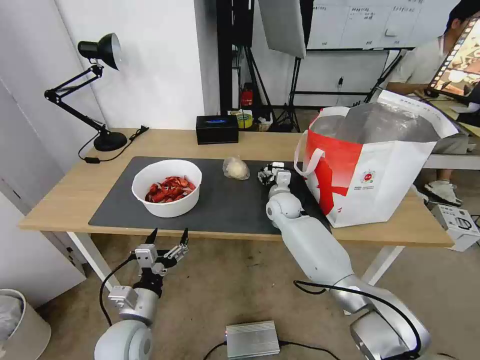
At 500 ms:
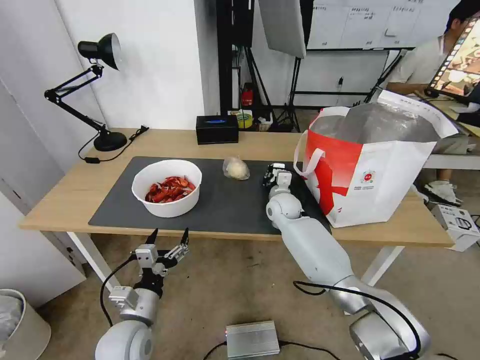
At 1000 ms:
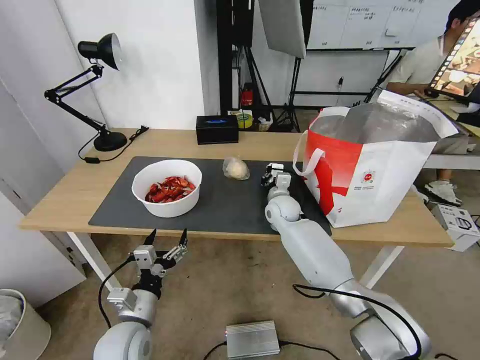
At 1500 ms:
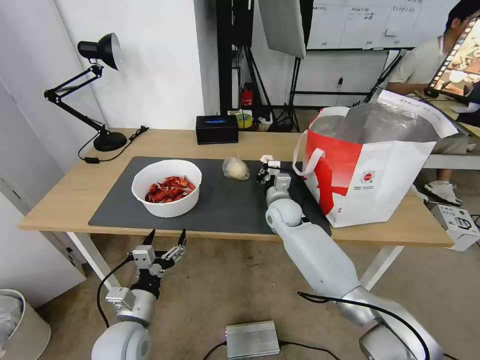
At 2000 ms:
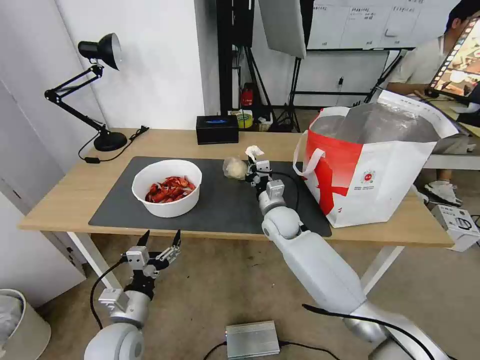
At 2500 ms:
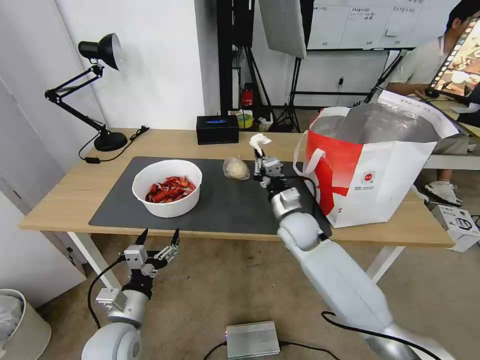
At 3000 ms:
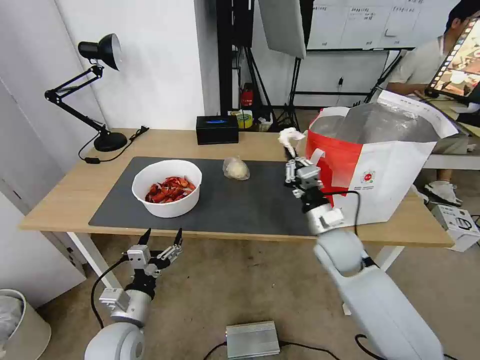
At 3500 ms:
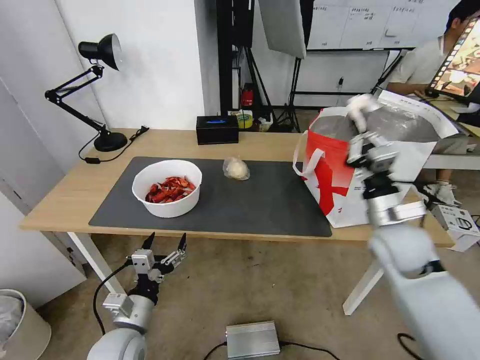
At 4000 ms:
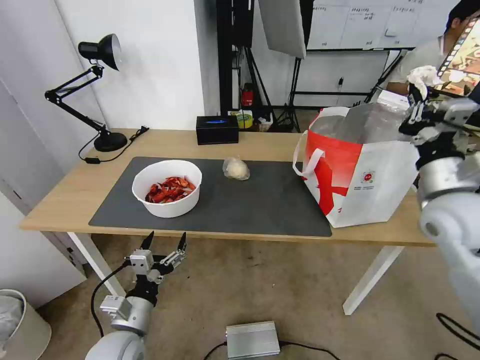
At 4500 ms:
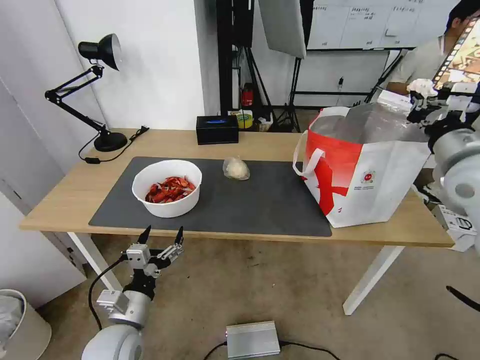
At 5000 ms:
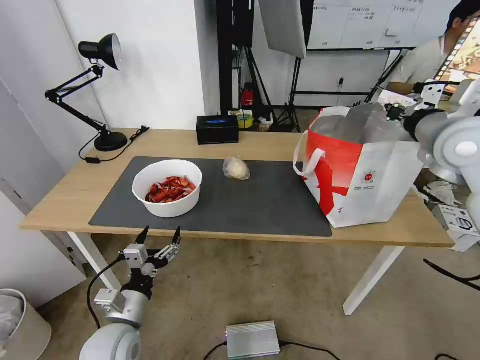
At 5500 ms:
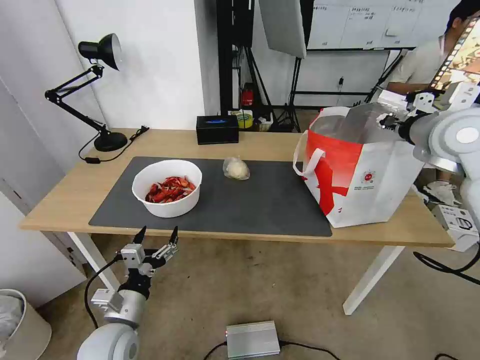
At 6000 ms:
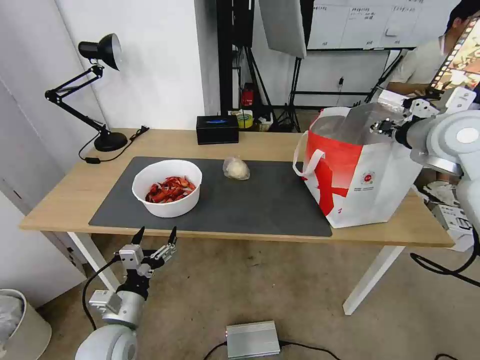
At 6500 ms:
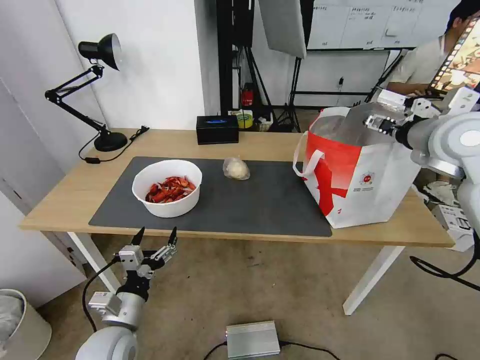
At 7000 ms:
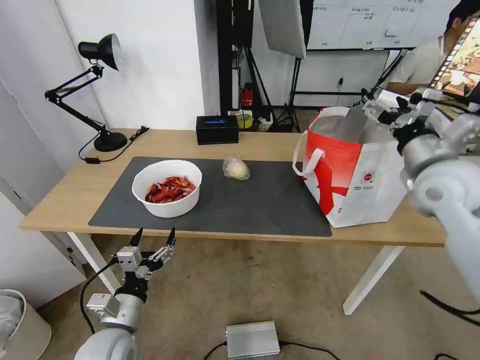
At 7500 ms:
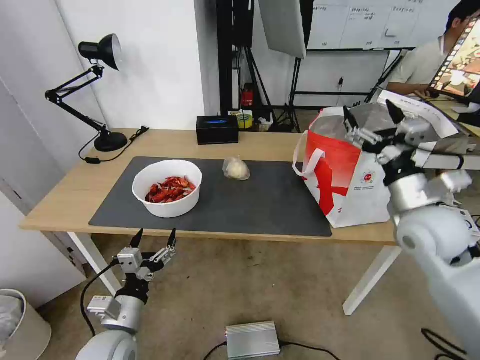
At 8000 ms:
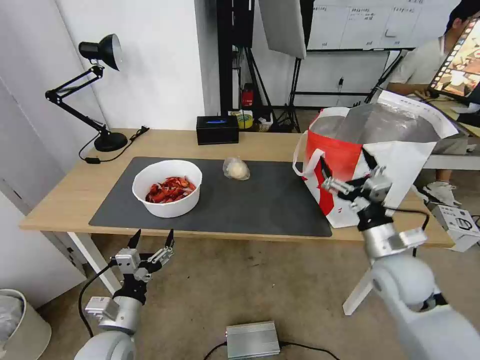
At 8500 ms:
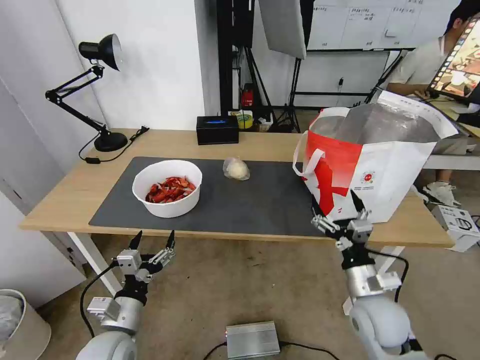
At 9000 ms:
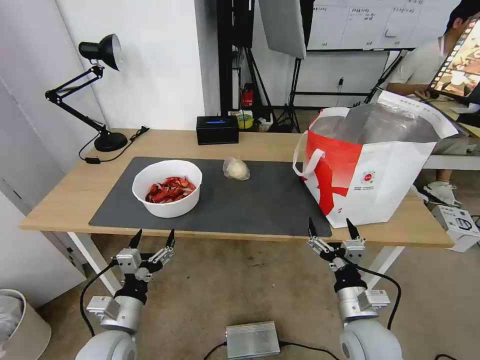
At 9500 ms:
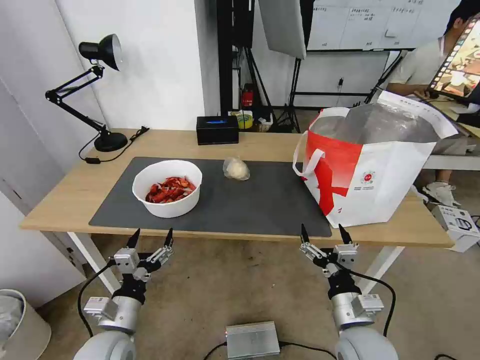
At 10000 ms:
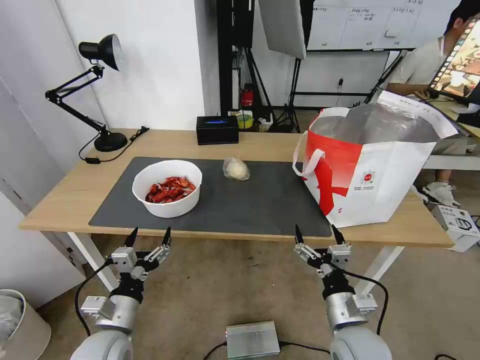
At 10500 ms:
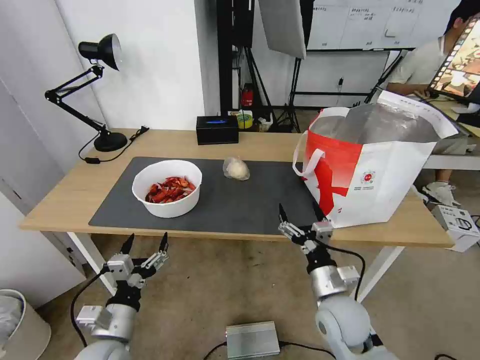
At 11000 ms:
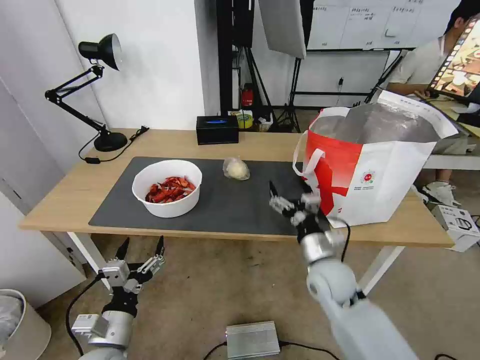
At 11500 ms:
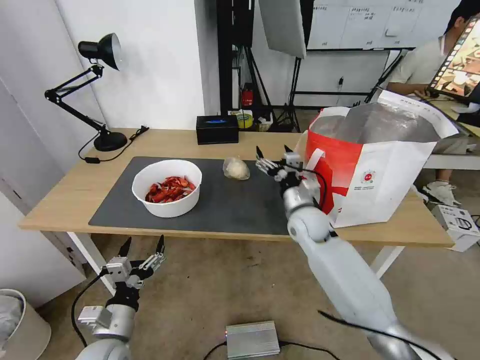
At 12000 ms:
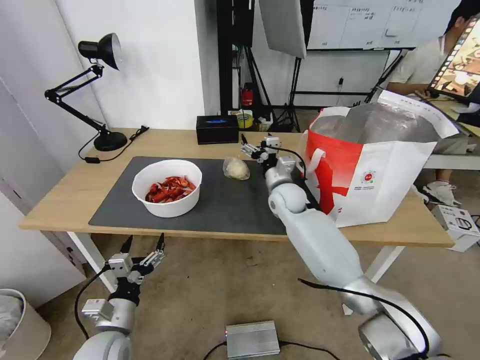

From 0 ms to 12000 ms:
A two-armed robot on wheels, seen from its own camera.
Task of the whole recording: Pick up the trash from the table and place it into the takeout bag.
From 0 ms to 2000 ms: The right gripper heads backward, covering roughly 5 cm, and closes.
From 2000 ms to 4000 ms: The right gripper is displaced to the right, upward and backward by about 35 cm.
From 4000 ms to 6000 ms: The right gripper shifts approximately 15 cm forward and upward, and opens up.
From 6000 ms to 8000 ms: The right gripper travels downward and backward by about 25 cm, and opens up.
From 8000 ms to 10000 ms: The right gripper travels backward, downward and to the left by roughly 15 cm.
From 10000 ms to 12000 ms: The right gripper goes approximately 35 cm forward.

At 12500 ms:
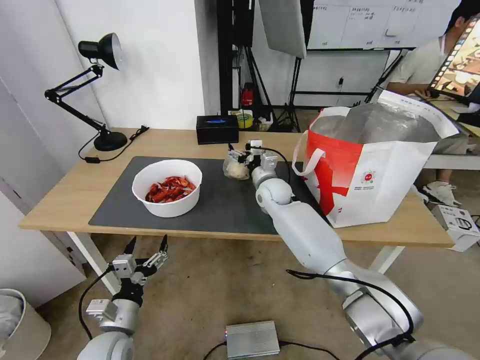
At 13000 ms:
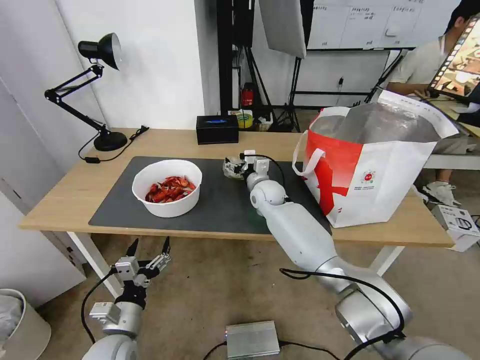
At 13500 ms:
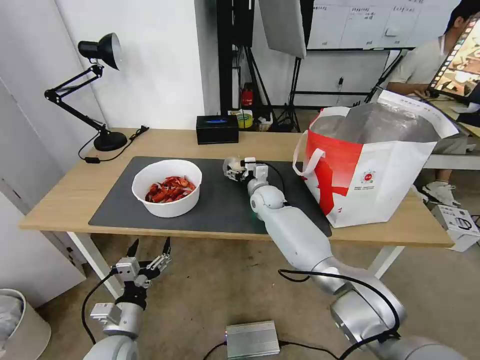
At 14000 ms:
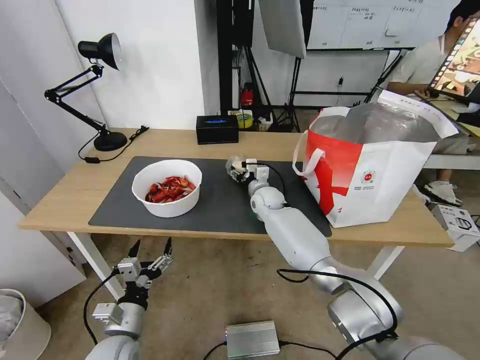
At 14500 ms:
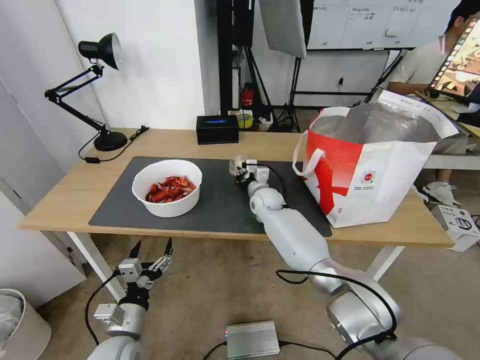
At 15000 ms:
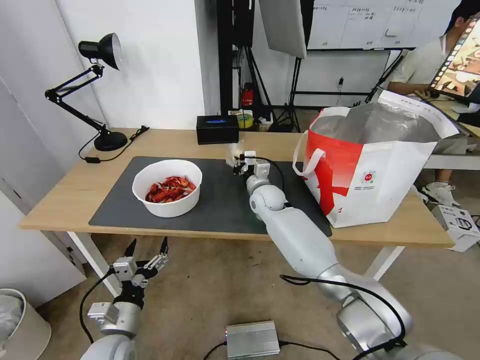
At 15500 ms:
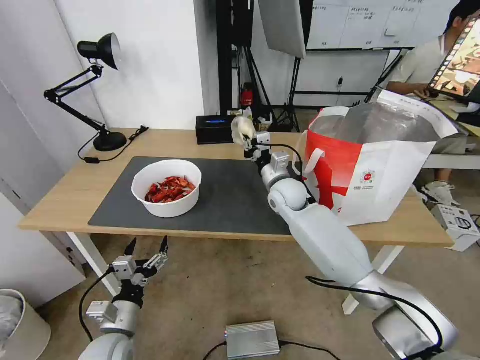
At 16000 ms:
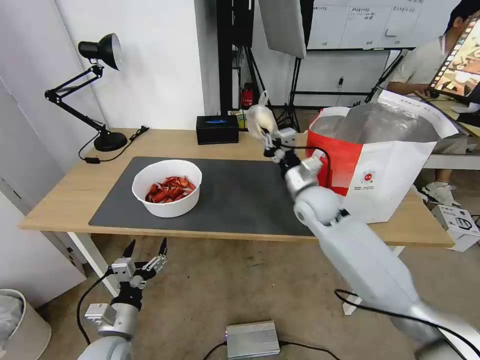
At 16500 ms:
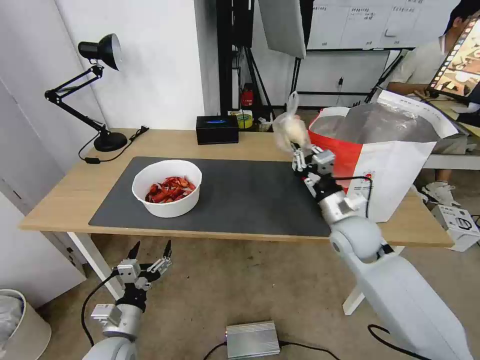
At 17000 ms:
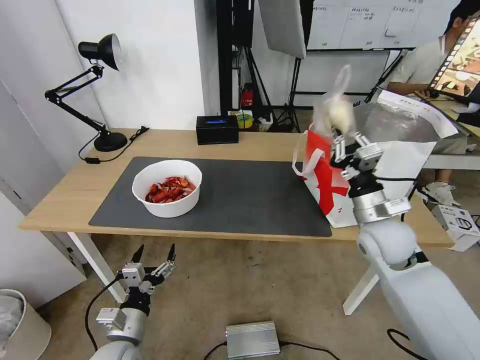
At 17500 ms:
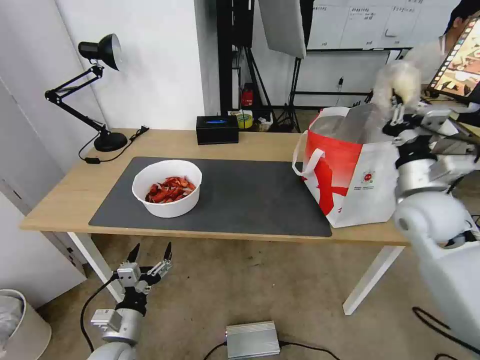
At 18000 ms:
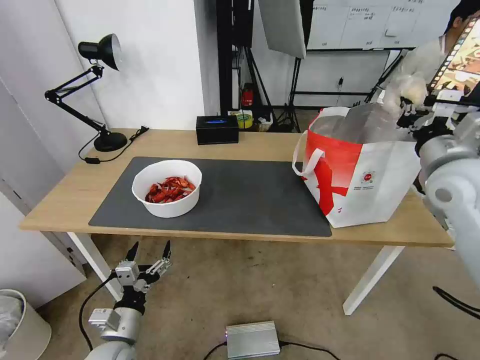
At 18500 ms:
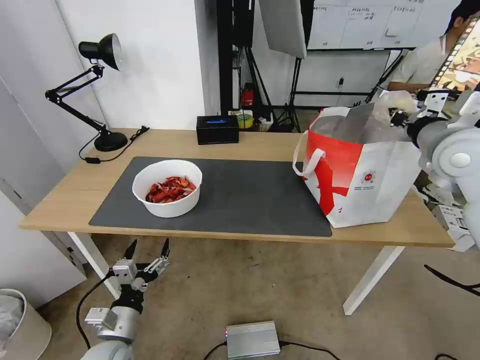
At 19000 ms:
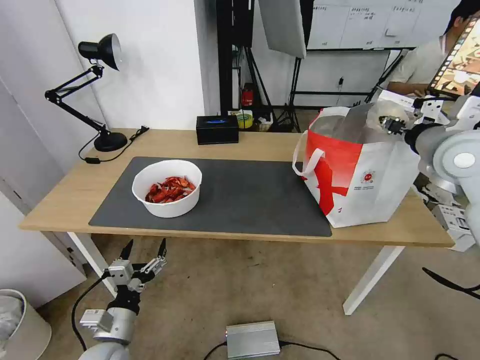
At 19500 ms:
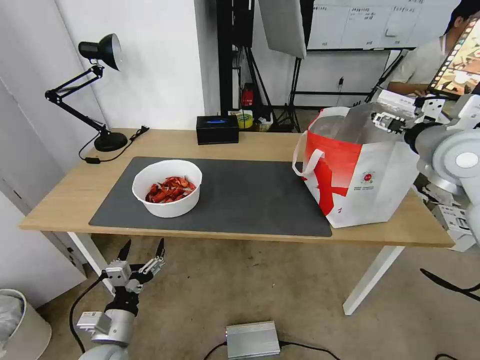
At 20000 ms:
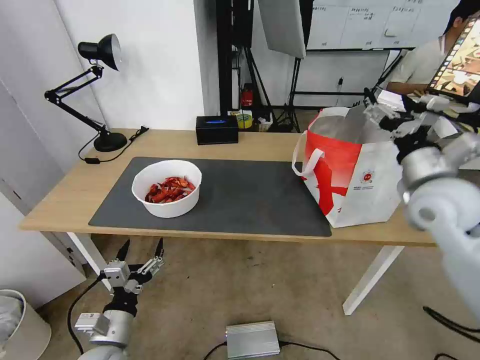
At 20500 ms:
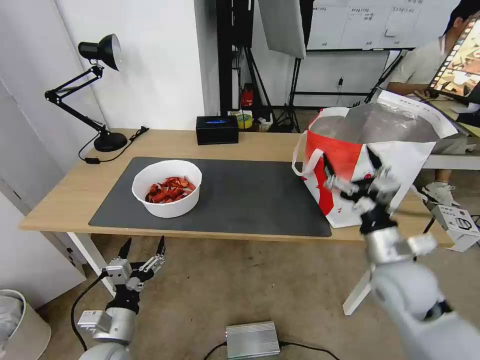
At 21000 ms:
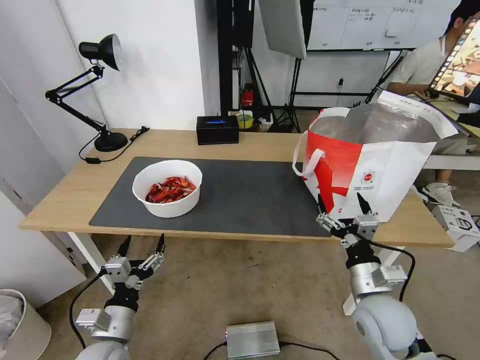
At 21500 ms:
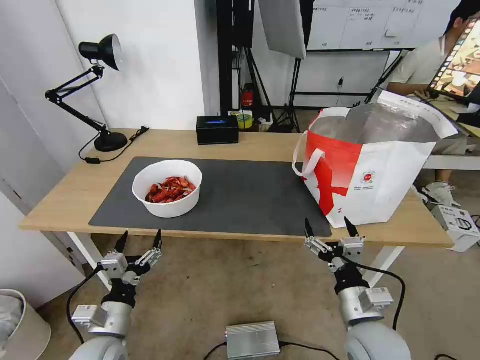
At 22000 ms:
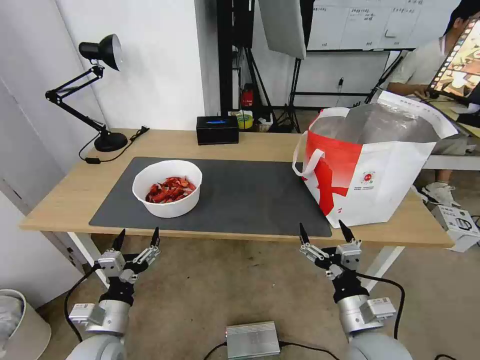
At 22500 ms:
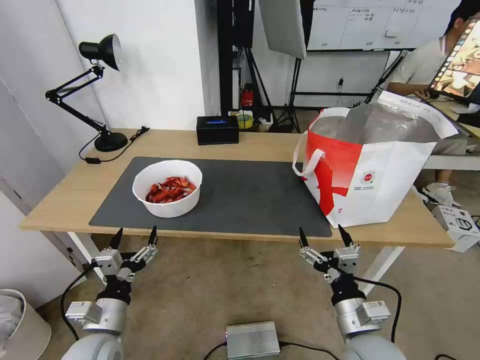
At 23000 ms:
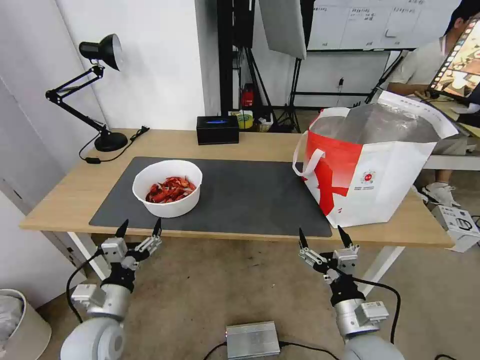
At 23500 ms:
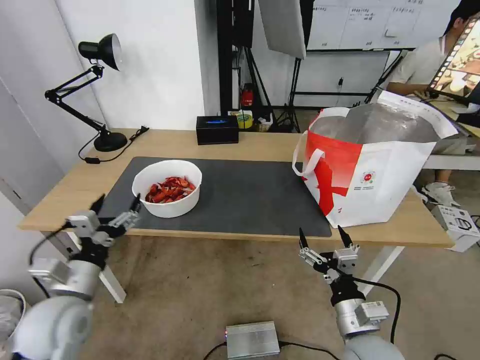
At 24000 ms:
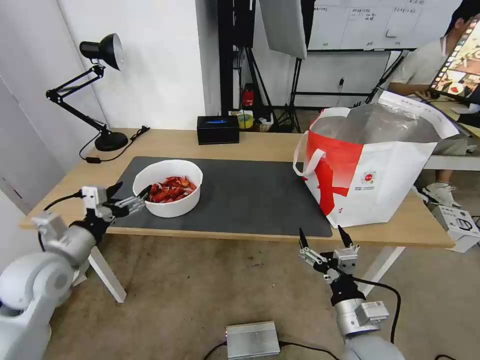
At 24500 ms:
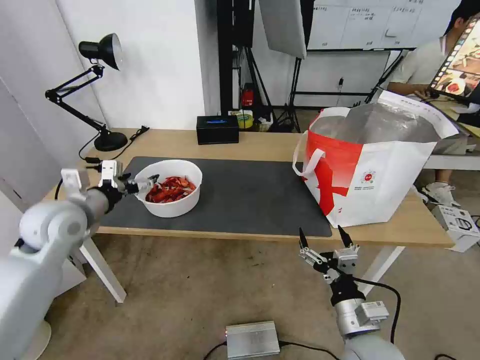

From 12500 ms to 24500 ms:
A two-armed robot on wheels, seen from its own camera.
Task of the whole recording: Pick up the trash from the table and place it into the takeout bag.
From 12500 ms to 14500 ms: The right gripper changes place by roughly 5 cm, and closes its fingers.
From 14500 ms to 16500 ms: The right gripper is displaced backward, to the right and upward by approximately 25 cm.
From 16500 ms to 18500 ms: The right gripper shifts approximately 25 cm upward and to the right.
From 18500 ms to 20500 ms: The right gripper heads downward, backward and to the left, covering roughly 25 cm, and opens.
From 20500 ms to 22500 ms: The right gripper travels backward, downward and to the left by some 15 cm.
From 22500 ms to 24500 ms: The left gripper goes some 25 cm forward and upward.

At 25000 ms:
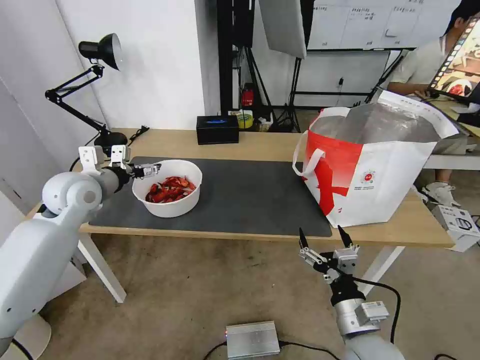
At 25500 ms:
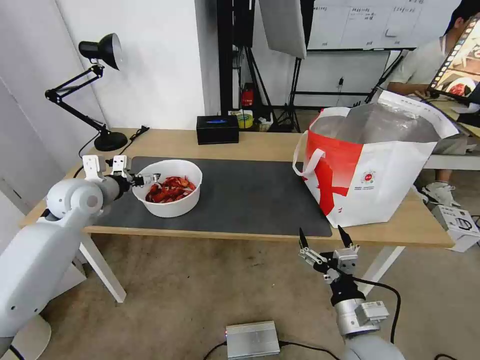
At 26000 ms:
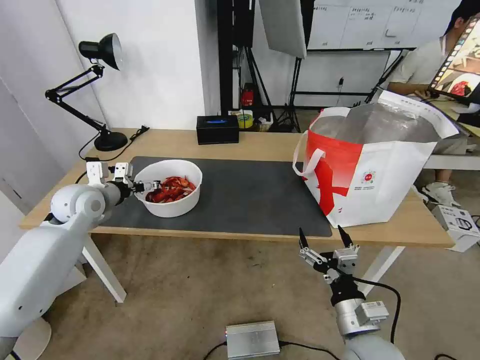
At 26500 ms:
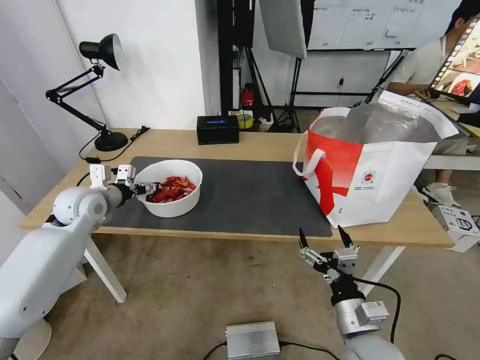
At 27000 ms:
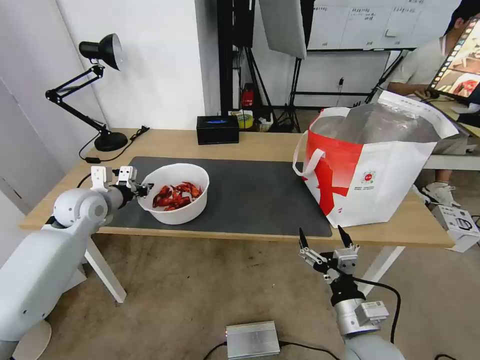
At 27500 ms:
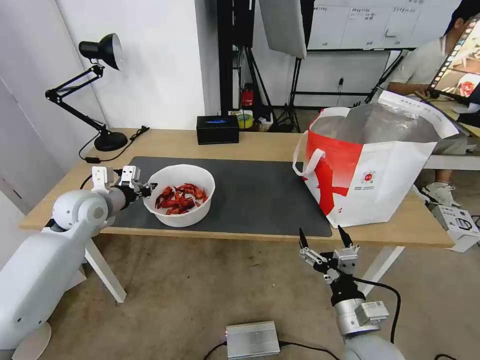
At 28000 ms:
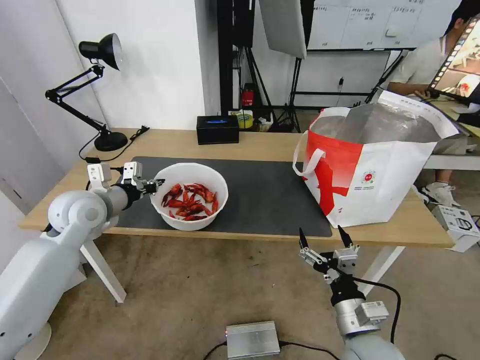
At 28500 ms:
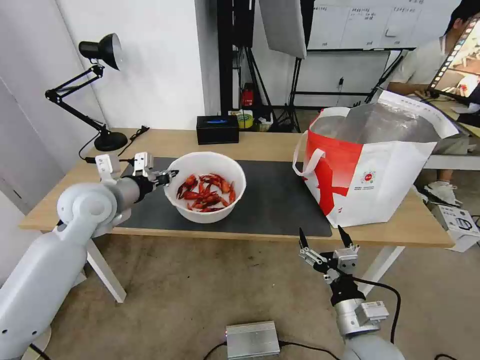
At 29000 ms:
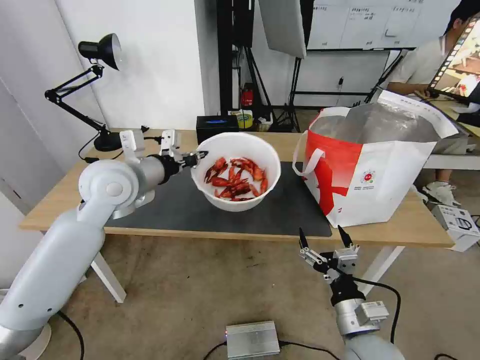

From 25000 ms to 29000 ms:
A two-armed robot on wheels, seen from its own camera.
Task of the whole recording: Pick up the trash from the table and place it into the takeout bag.
From 25000 ms to 27000 ms: The left gripper heads downward, covering roughly 5 cm, and closes.
From 27000 ms to 29000 ms: The left gripper moves to the right and upward, about 15 cm.
